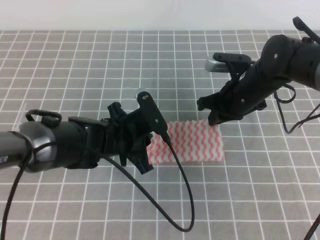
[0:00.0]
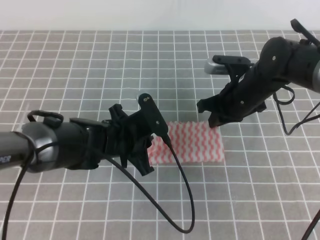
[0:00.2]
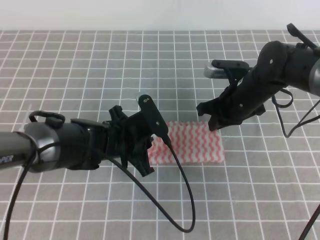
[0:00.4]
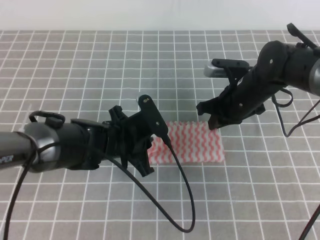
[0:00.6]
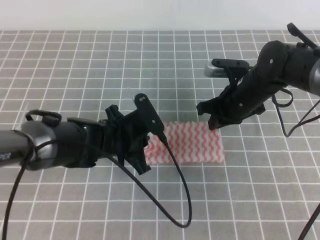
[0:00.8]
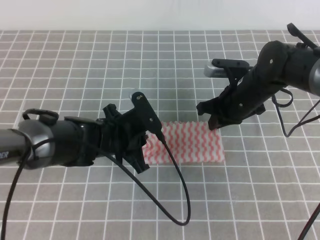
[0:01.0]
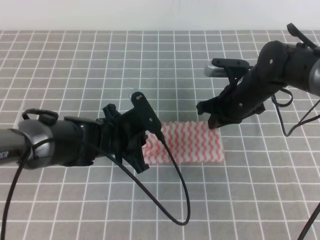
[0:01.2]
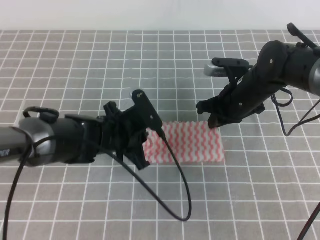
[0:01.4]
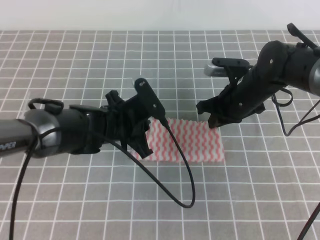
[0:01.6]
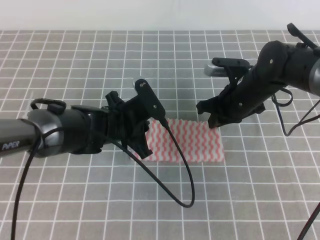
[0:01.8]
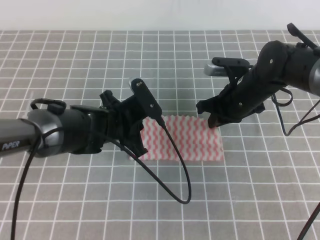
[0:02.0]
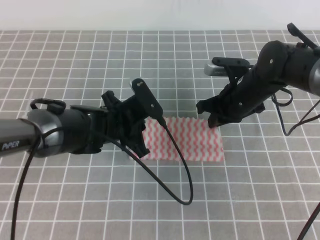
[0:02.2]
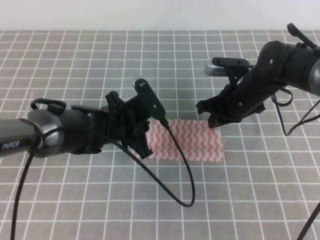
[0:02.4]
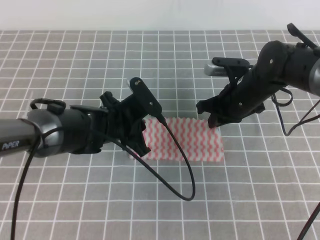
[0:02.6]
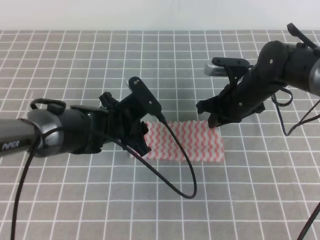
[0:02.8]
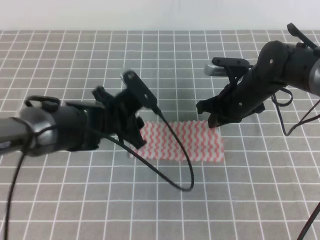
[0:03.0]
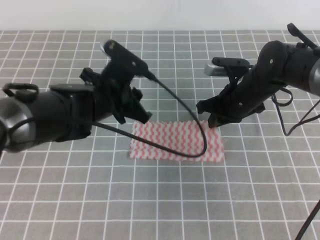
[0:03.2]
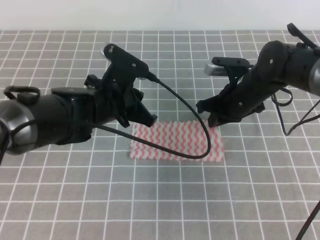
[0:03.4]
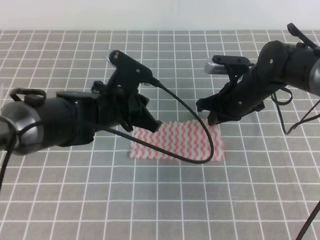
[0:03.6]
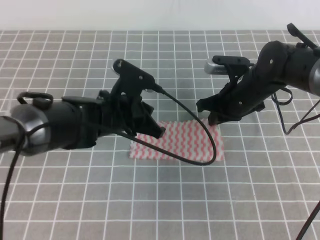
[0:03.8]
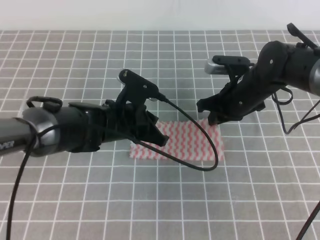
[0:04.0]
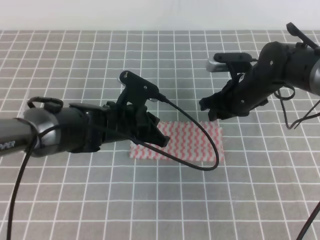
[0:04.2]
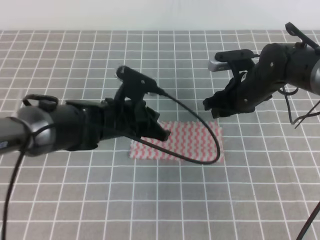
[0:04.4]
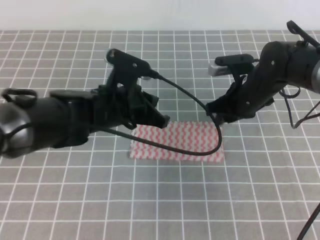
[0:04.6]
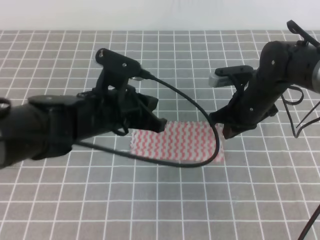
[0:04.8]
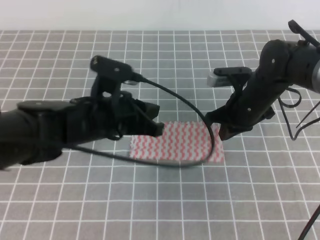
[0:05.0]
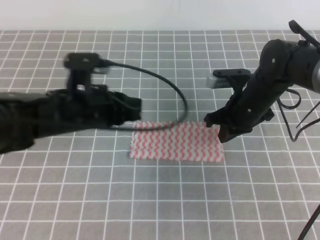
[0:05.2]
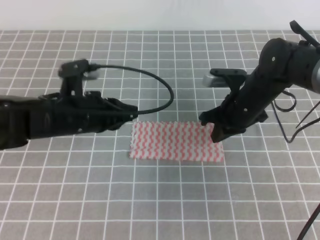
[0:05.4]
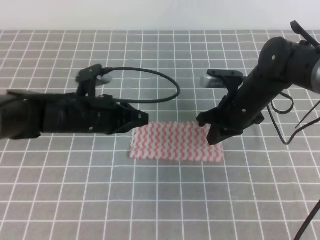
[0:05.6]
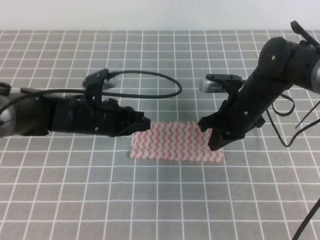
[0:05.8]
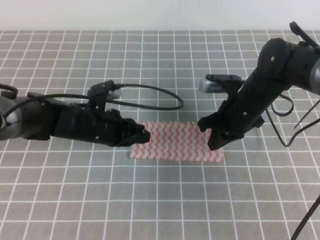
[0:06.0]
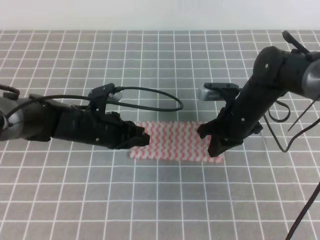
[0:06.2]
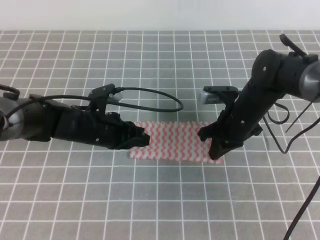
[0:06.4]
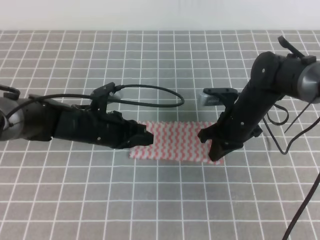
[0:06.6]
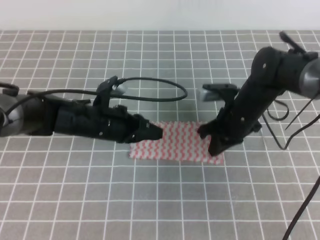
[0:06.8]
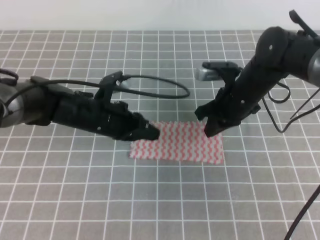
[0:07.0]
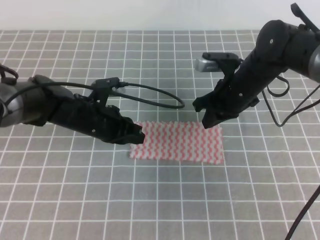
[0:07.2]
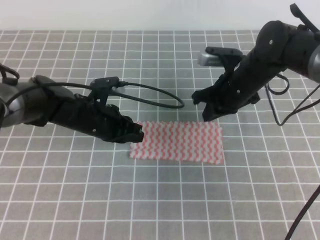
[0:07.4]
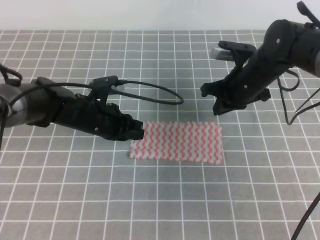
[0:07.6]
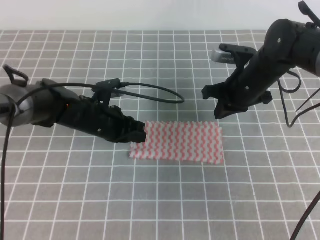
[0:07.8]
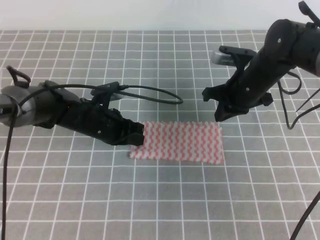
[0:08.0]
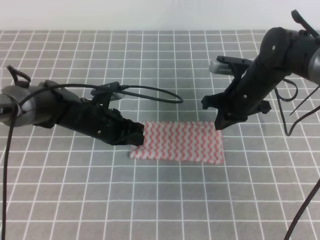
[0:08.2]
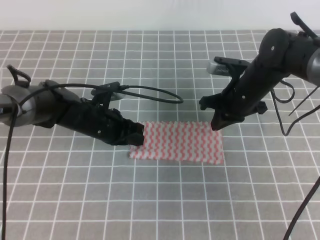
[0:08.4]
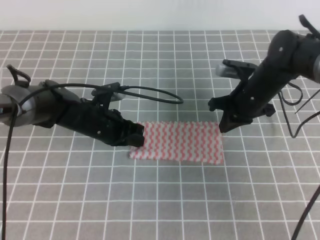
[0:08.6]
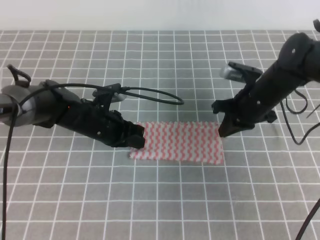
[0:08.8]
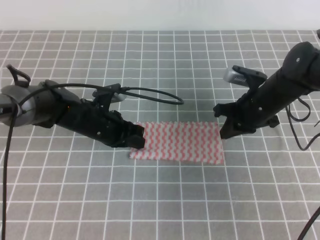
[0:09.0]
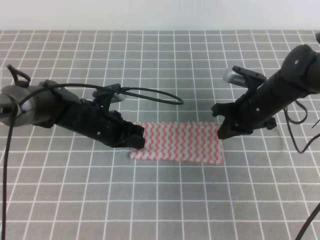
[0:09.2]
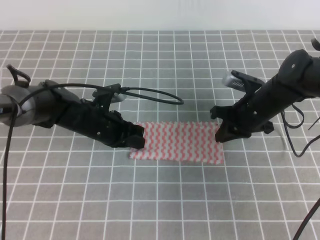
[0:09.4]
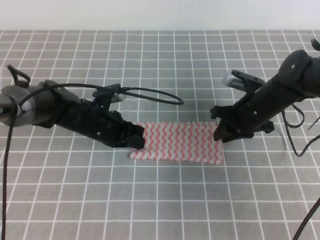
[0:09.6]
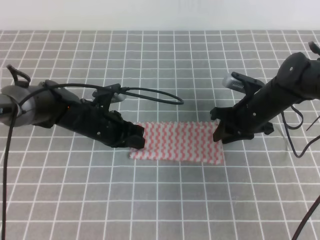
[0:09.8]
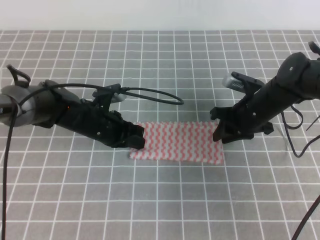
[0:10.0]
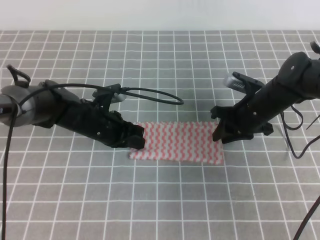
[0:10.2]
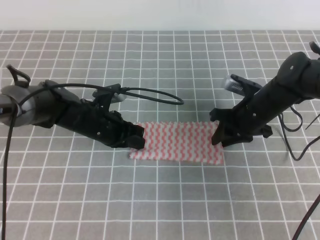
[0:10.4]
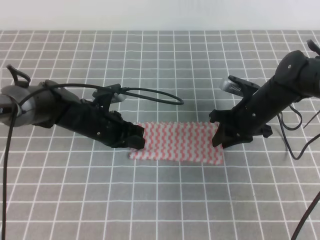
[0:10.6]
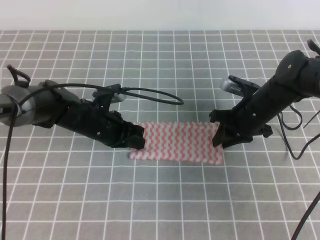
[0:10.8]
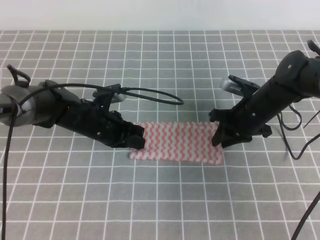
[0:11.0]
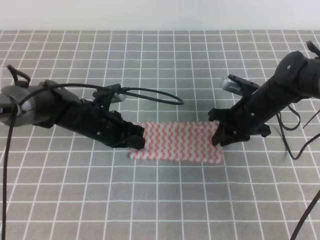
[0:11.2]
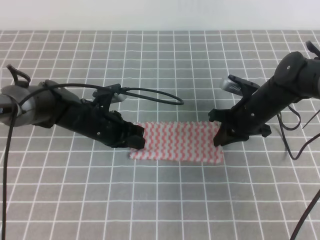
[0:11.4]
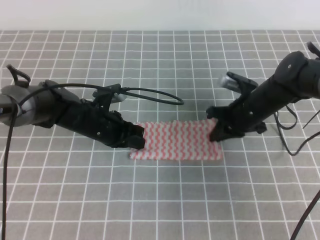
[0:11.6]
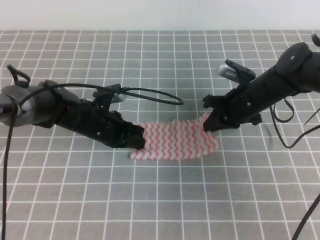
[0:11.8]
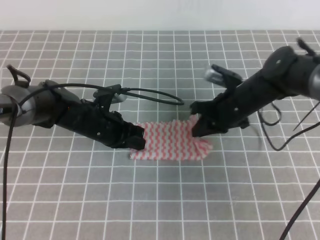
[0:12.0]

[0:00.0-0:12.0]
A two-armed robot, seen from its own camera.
0:00.0 to 0:01.6: The grippers make only small movements.
0:01.6 to 0:03.0: The left gripper opens.
0:03.0 to 0:04.4: The right gripper opens. Meanwhile the left gripper closes.
0:04.4 to 0:06.0: The left gripper heads to the left, covering about 5 cm. Meanwhile the right gripper closes.
0:06.0 to 0:09.0: There are only small adjustments of the grippers.
0:09.0 to 0:10.4: The right gripper opens its fingers.
0:10.4 to 0:12.0: The right gripper closes its fingers.

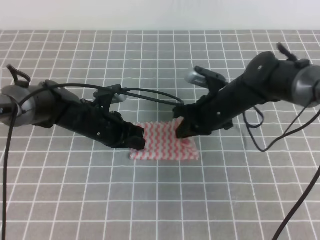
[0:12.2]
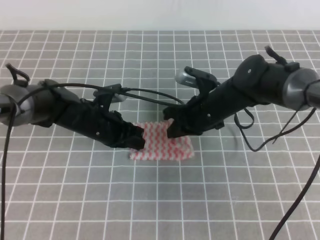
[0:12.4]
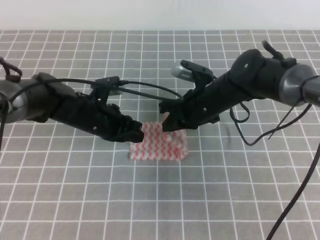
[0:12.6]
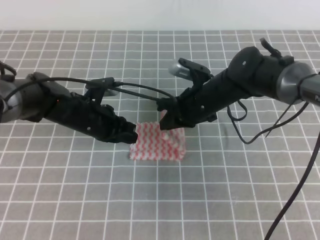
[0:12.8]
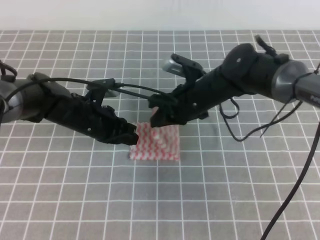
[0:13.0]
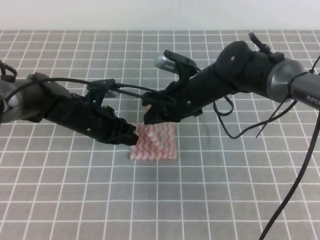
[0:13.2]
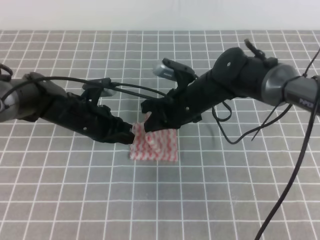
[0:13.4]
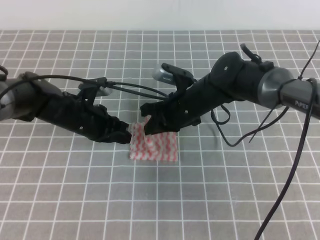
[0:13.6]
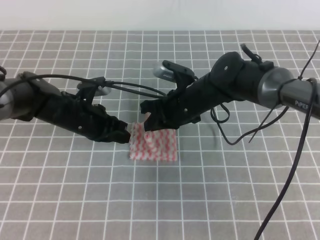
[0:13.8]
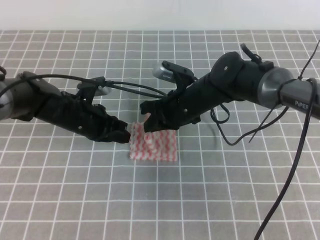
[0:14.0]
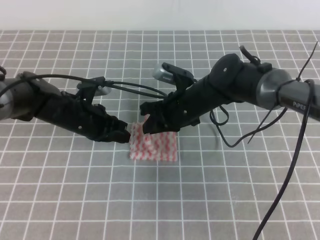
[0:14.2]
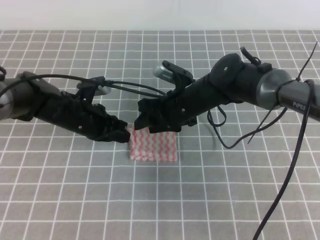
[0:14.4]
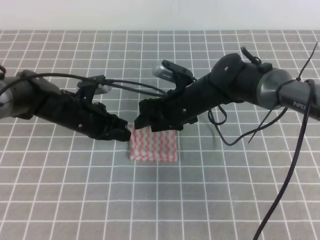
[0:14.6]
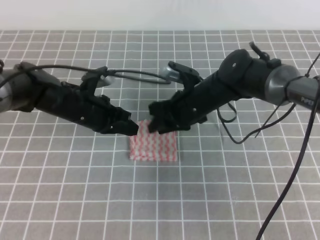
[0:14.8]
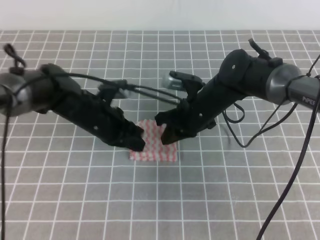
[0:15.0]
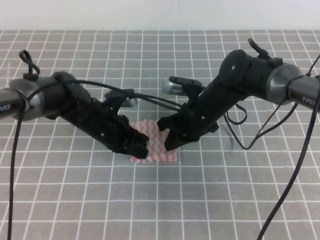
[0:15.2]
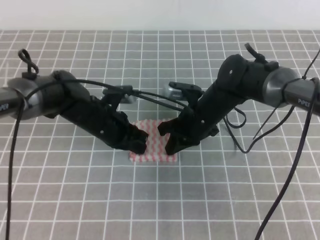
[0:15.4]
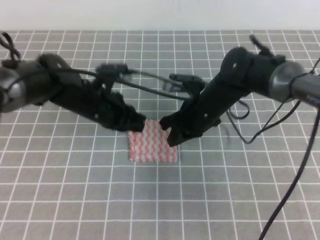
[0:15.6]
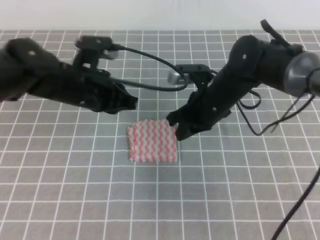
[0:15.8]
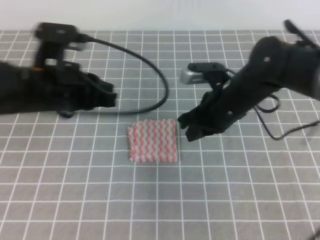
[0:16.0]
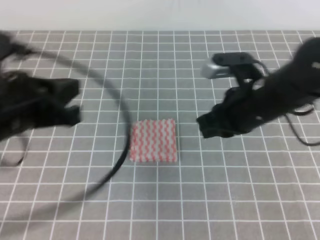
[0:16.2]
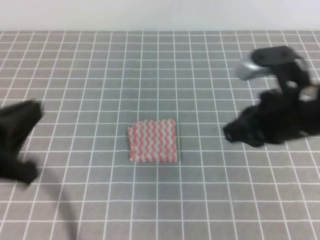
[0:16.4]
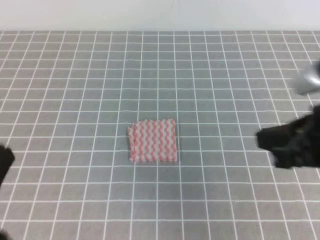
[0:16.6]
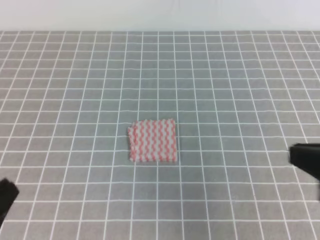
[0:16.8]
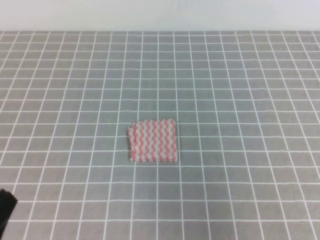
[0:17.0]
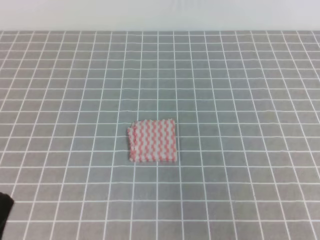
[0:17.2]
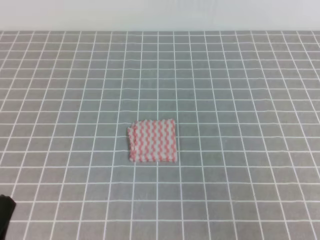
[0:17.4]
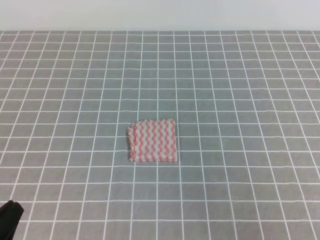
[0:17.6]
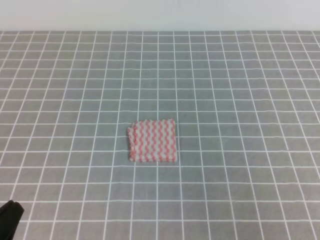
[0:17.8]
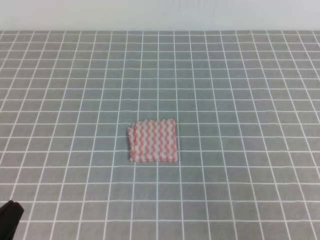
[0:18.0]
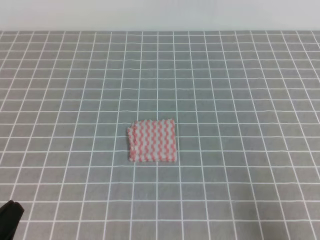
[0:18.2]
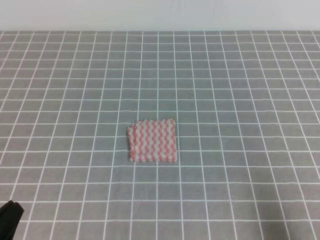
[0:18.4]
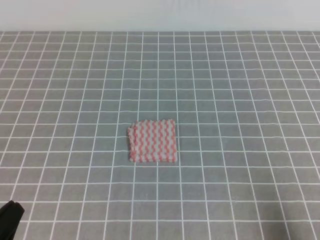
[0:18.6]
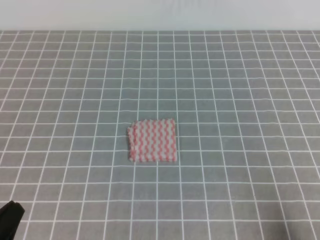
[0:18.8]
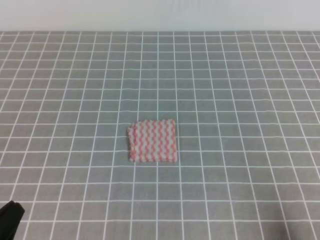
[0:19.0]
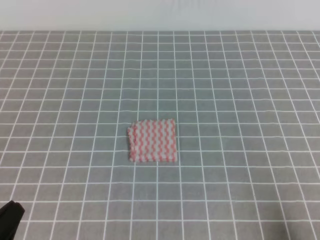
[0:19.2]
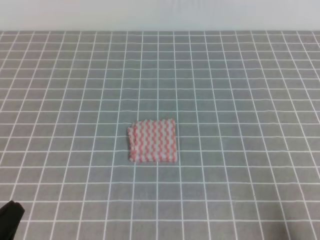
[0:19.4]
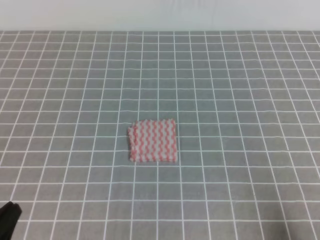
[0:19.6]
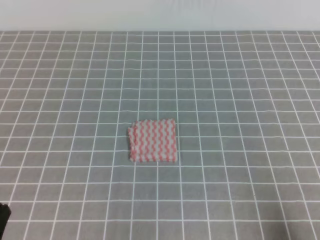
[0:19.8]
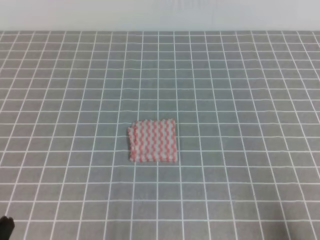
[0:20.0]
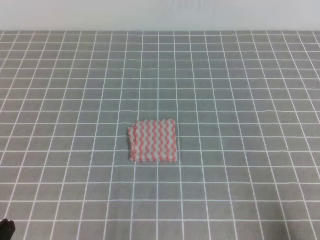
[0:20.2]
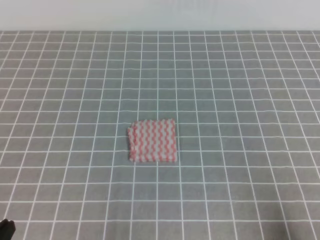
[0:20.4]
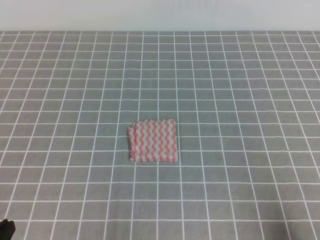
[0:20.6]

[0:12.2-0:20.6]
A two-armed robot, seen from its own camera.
Step, 0:12.2 to 0:20.6: Fold the towel.
0:12.2 to 0:13.6: The right gripper is displaced to the left by approximately 5 cm.
0:13.6 to 0:15.0: The right gripper opens, then closes once more.
0:15.0 to 0:16.4: The left gripper is displaced backward, upward and to the left by roughly 30 cm; the right gripper travels backward, upward and to the right by some 20 cm.
0:16.4 to 0:17.8: The right gripper is displaced backward and to the right by approximately 20 cm; the left gripper shifts roughly 15 cm downward and backward.
0:17.8 to 0:19.2: The right gripper moves downward, roughly 10 cm.
